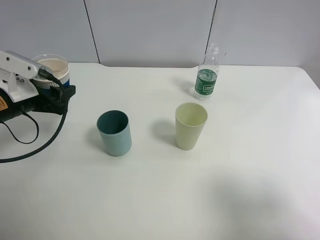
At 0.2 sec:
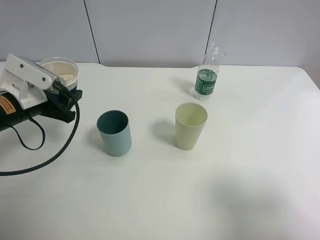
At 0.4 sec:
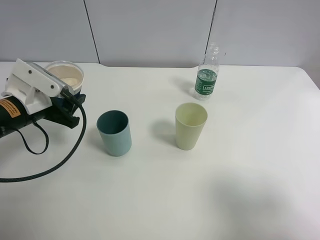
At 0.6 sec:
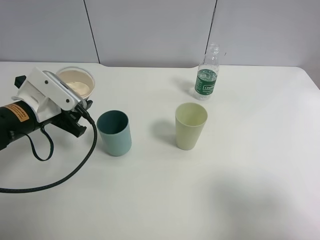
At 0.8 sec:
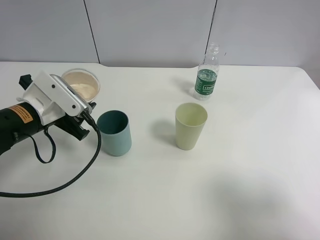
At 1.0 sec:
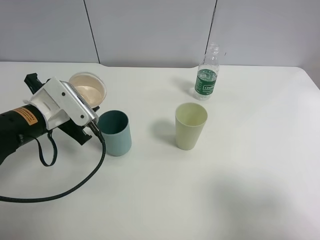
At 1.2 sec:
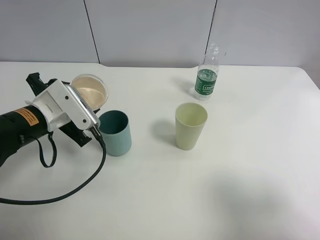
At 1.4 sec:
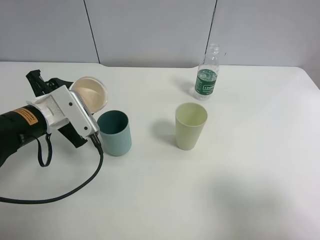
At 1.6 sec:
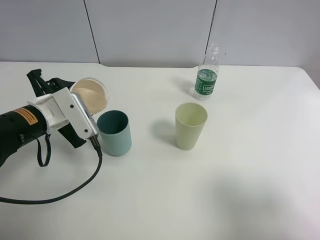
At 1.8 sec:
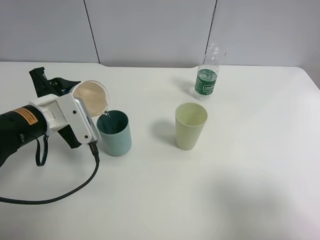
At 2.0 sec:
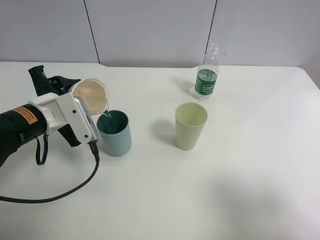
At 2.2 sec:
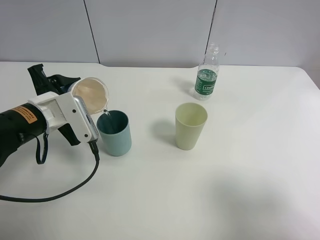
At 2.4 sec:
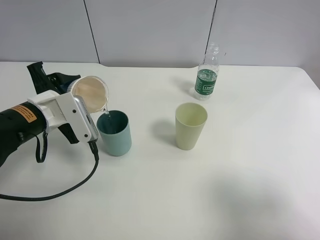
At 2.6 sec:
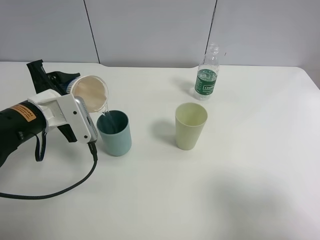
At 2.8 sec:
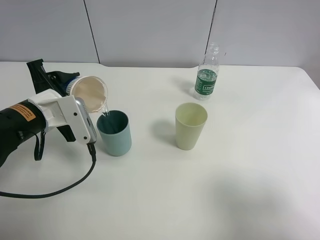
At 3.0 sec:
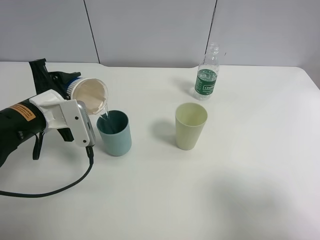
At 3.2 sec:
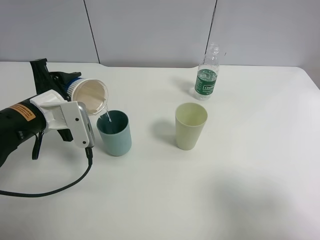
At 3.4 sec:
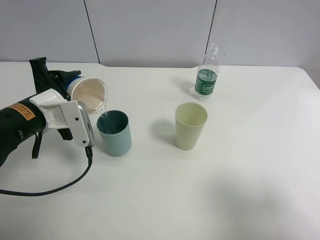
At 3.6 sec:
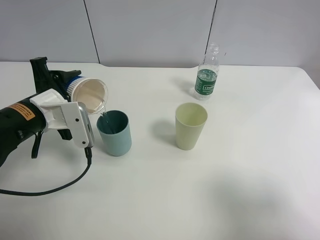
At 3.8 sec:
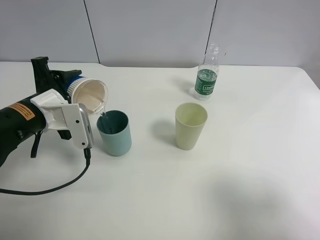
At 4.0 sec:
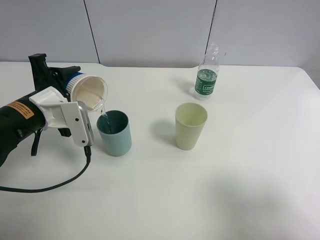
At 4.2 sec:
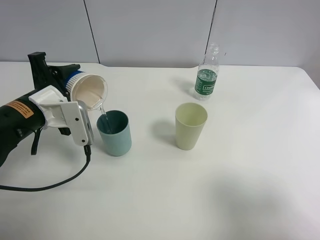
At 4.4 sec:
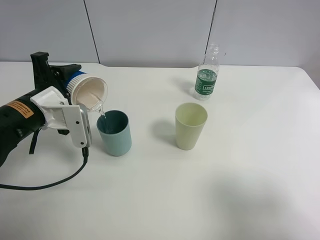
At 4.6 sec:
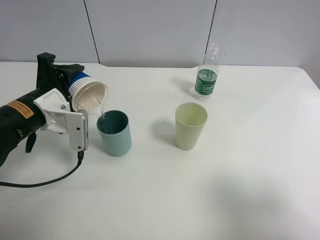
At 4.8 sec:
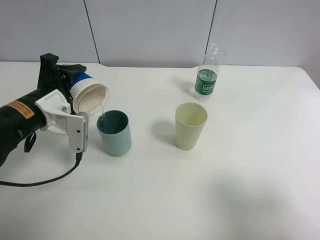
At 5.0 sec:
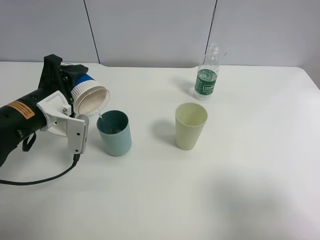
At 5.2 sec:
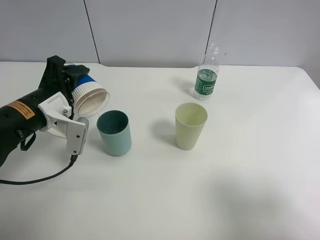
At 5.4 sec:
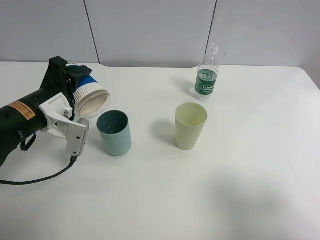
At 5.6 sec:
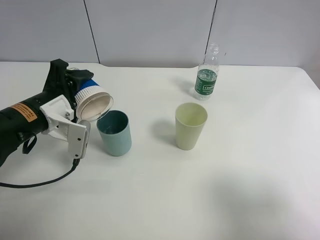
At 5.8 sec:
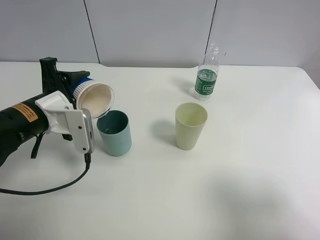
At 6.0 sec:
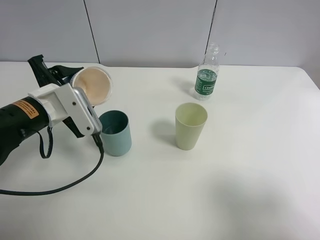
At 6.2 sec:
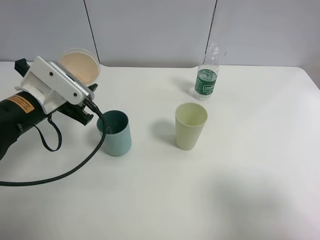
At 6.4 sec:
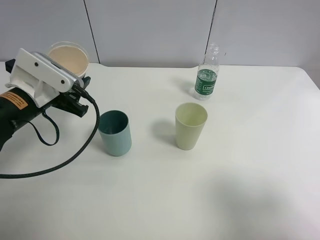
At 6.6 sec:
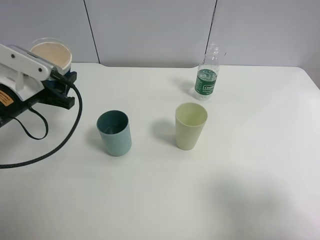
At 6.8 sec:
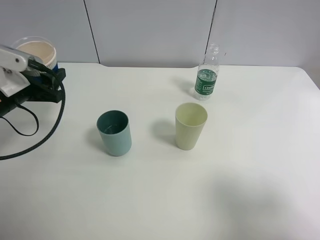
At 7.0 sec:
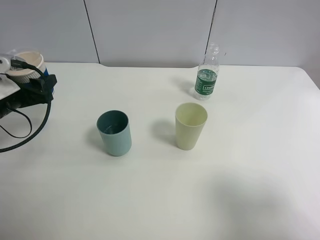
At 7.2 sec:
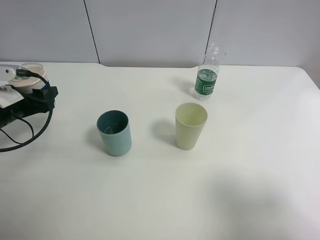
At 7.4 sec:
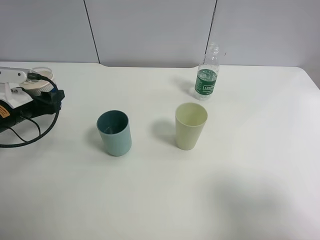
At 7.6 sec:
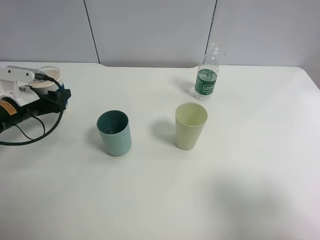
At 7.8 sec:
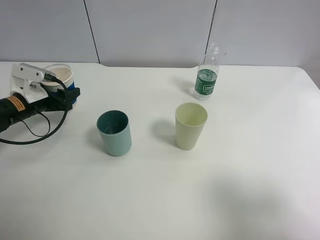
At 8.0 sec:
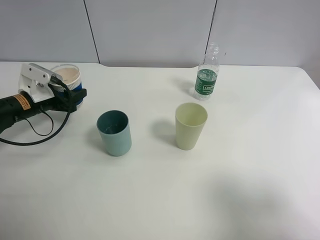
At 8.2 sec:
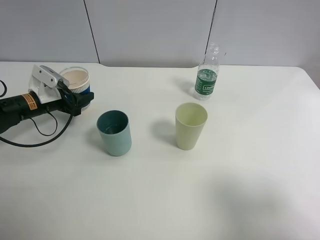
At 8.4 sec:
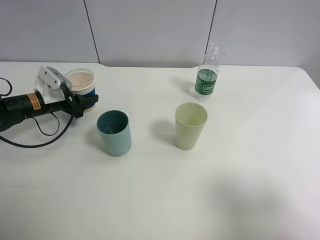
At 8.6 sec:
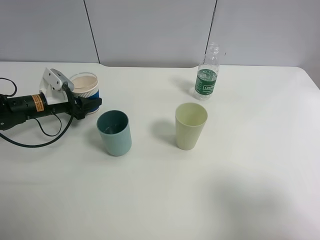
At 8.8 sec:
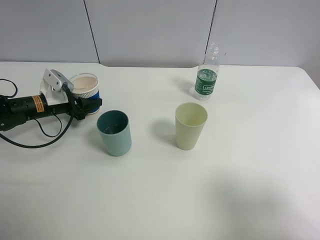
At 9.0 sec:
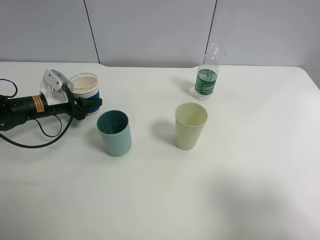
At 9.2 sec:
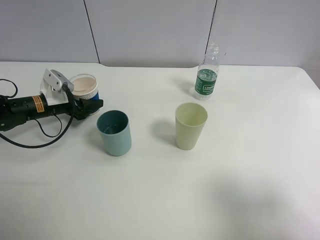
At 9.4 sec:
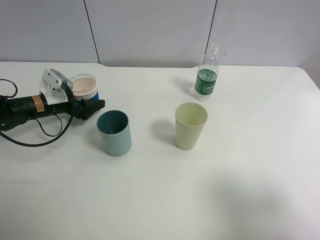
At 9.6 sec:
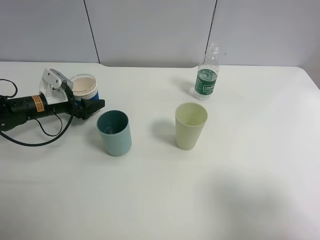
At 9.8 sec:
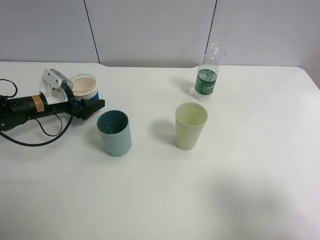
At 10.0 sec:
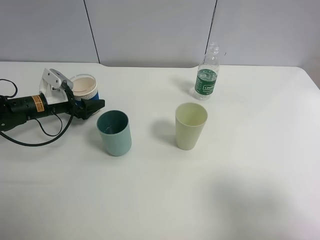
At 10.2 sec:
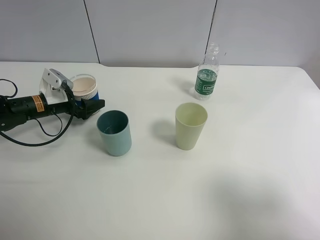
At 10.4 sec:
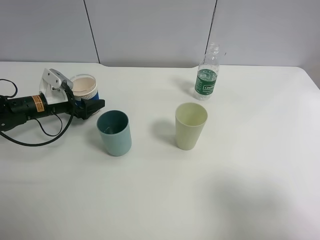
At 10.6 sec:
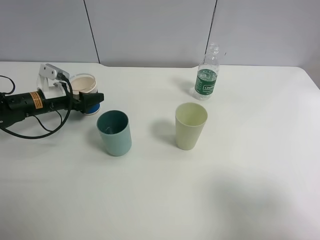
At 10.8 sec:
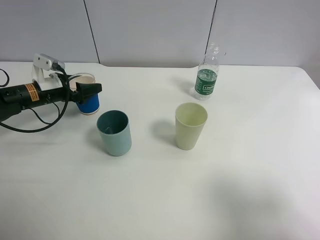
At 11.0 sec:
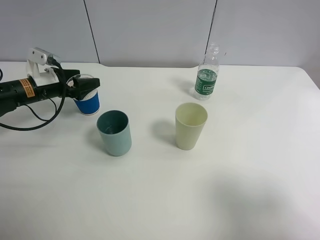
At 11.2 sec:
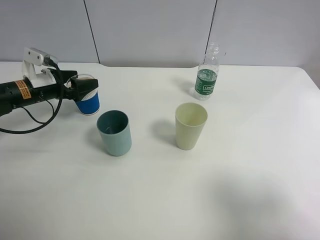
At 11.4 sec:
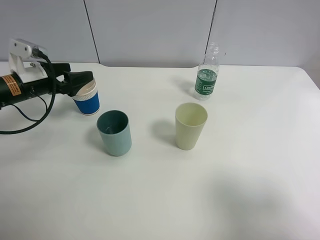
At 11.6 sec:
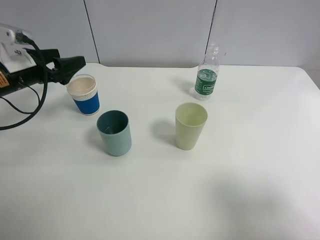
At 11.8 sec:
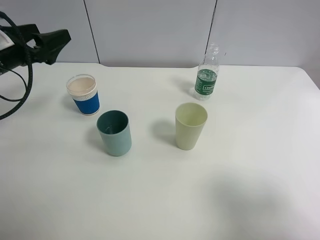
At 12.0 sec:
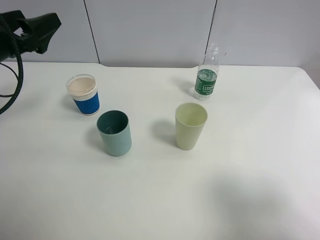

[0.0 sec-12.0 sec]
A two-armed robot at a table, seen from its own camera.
Task of the whole recording: use a clamp to hold the bottle of the drink, pour the beverage into a random cup, then clamp the cup containing the drink and pour the drink into another random cup.
Step, 0.0 sec to 6.4 sec: Pour water into the blue plastic cup with left gripper.
Step, 6.6 sec to 11.4 sec: Place the paper cup on the table with left gripper.
0.0 sec to 1.6 sec: The left gripper is displaced to the right by about 5 cm.
3.0 sec to 4.4 sec: The grippers move only a little.
6.0 sec to 7.6 sec: The left gripper moves to the left, forward and downward, approximately 15 cm.
7.6 sec to 9.0 sec: The left gripper heads forward, covering about 5 cm.
9.0 sec to 10.4 sec: The left gripper opens.
10.4 sec to 12.0 sec: The left gripper shifts some 20 cm upward and backward.

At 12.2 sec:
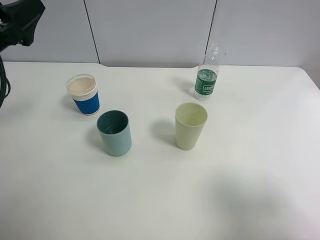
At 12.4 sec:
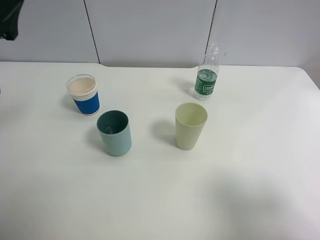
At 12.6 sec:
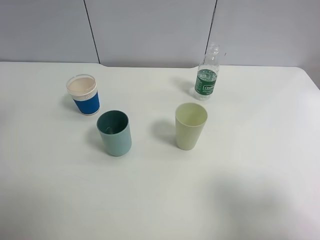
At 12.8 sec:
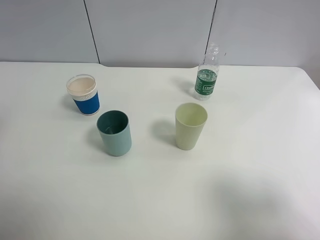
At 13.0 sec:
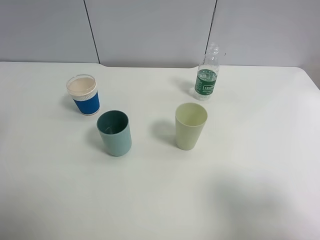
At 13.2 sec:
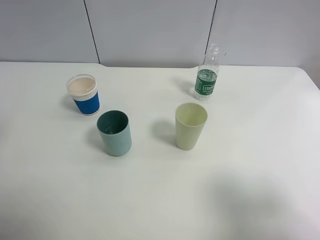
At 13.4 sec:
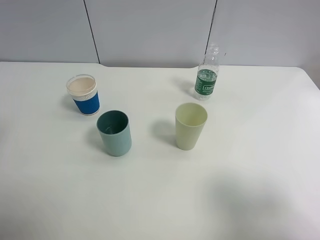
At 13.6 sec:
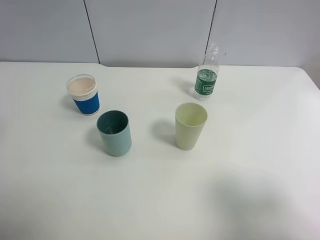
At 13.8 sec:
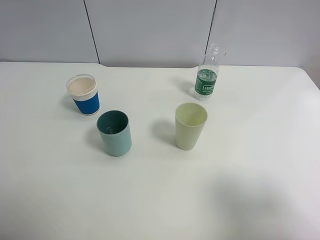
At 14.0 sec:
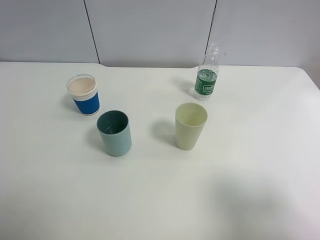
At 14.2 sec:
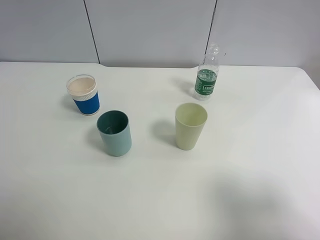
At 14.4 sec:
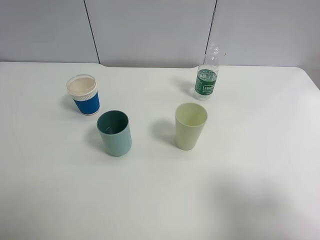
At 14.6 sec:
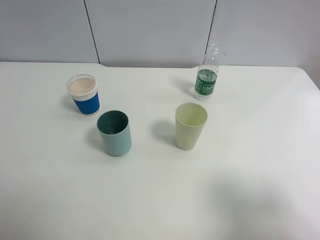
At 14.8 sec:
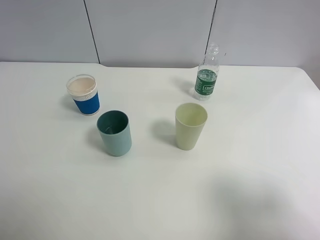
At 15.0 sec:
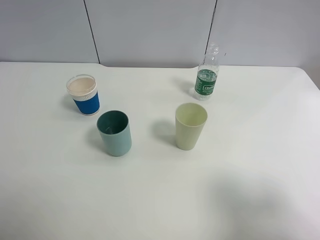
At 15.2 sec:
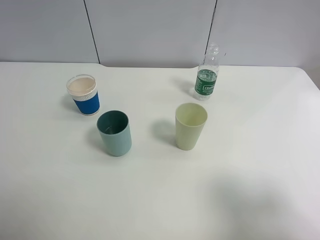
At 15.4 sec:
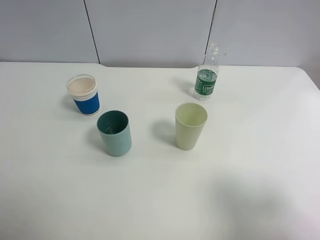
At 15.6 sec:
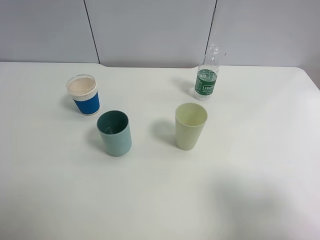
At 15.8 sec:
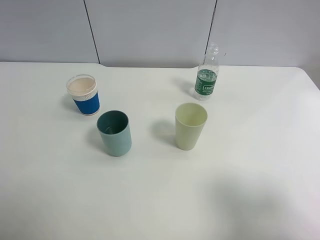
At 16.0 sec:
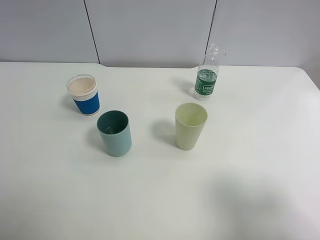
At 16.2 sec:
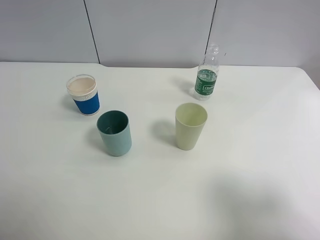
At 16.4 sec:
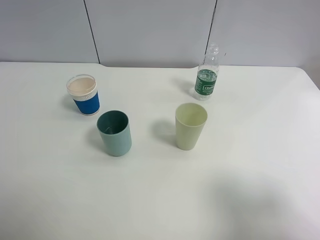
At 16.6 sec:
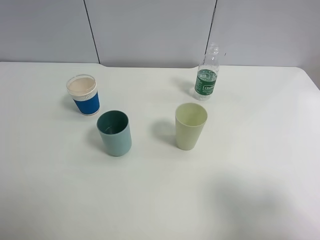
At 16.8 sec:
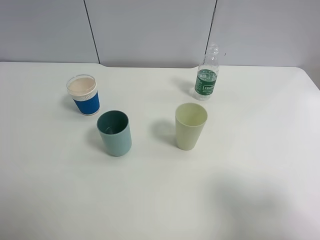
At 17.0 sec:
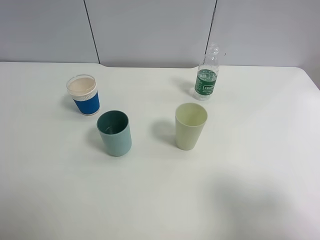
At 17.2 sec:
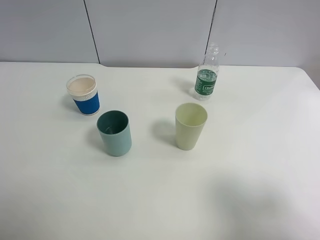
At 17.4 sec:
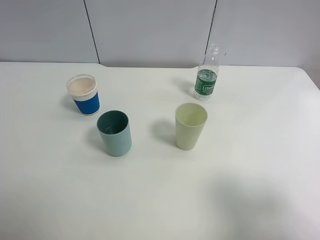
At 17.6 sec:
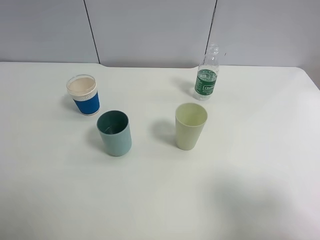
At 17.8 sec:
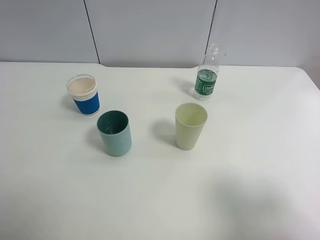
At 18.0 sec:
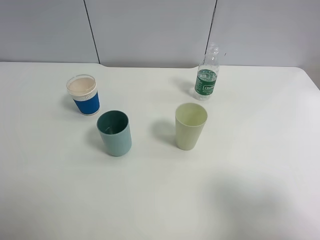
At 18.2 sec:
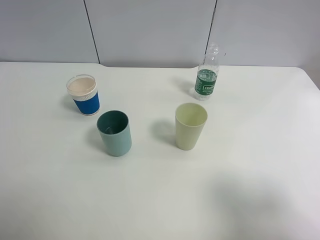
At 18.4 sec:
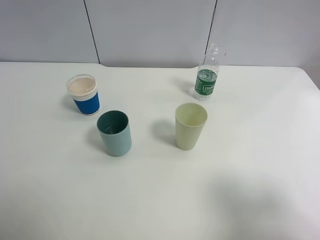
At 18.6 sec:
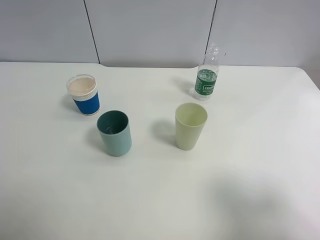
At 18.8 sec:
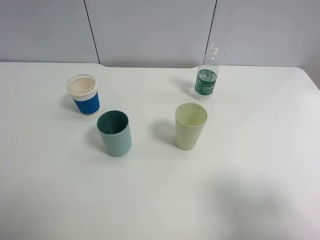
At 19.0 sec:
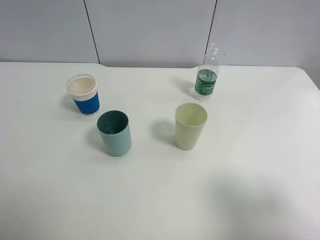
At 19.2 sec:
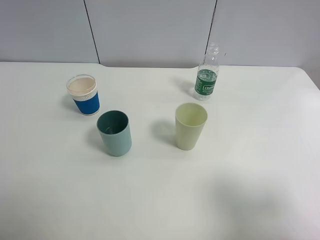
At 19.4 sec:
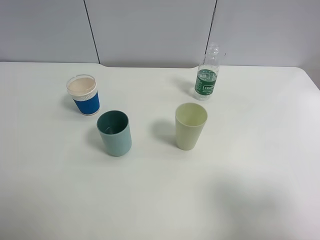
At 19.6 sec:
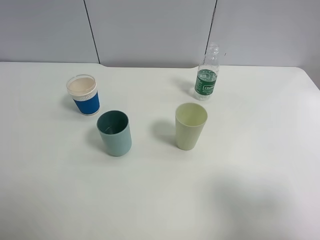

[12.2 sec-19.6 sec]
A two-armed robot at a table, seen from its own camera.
Task of the whole recording: use a clamp to hold the bottle of the drink, pour the beverage into a random cup, then clamp the cup containing the drink and pour the drink into another random cup.
12.2 sec to 13.6 sec: The left gripper moves backward, about 10 cm.
18.2 sec to 19.6 sec: The two grippers keep their place.
